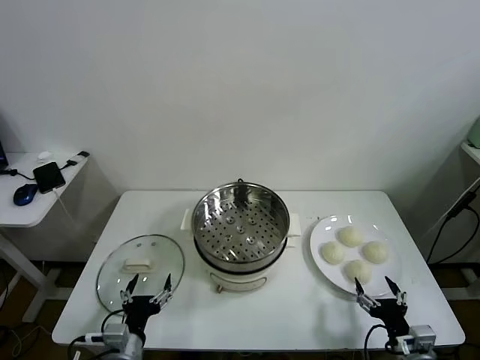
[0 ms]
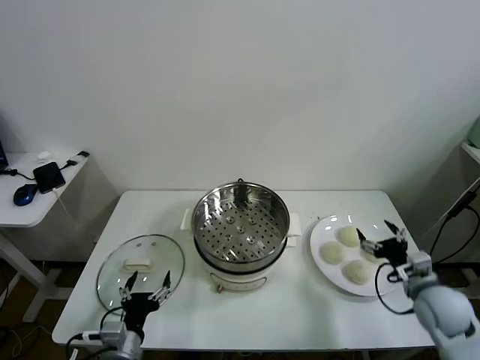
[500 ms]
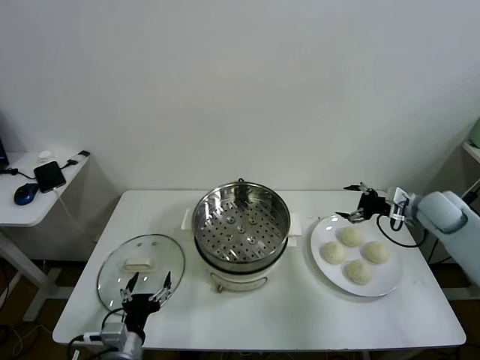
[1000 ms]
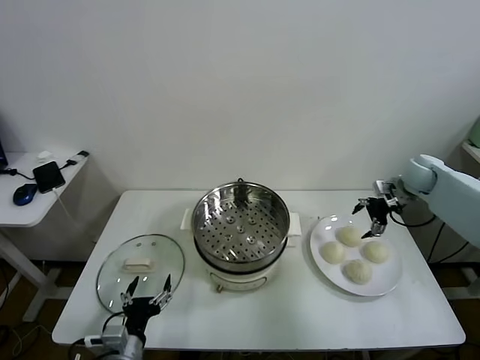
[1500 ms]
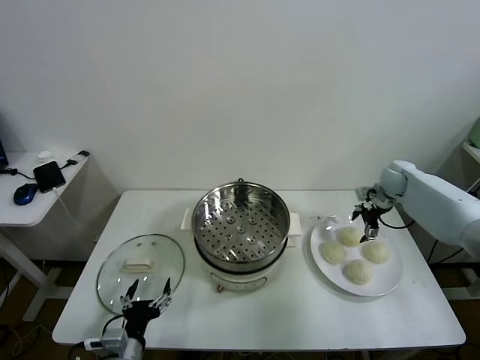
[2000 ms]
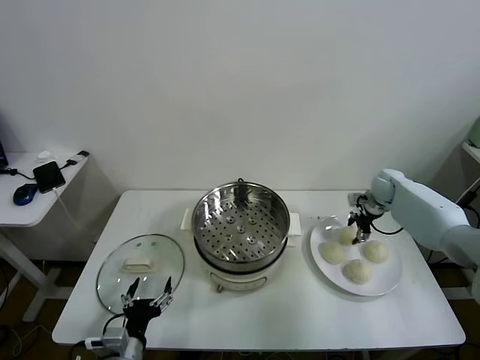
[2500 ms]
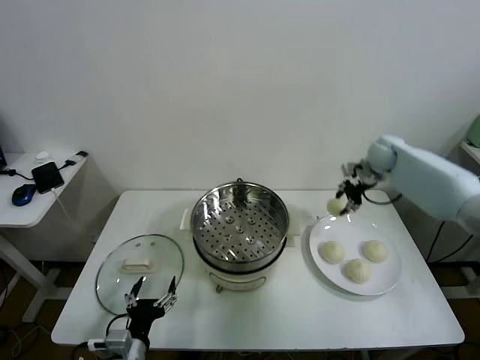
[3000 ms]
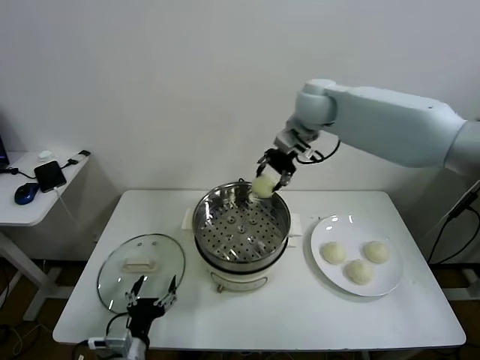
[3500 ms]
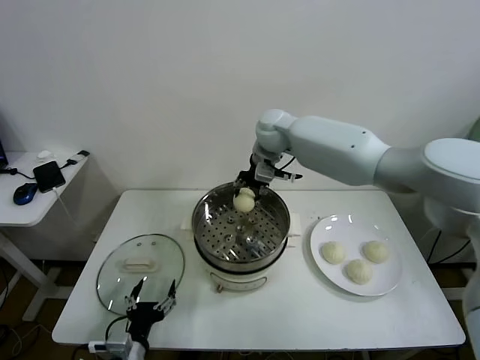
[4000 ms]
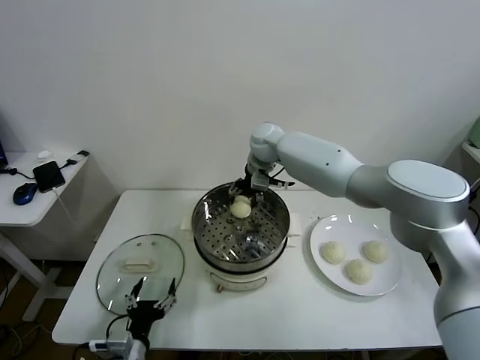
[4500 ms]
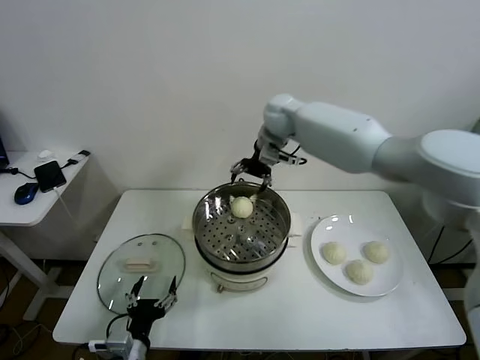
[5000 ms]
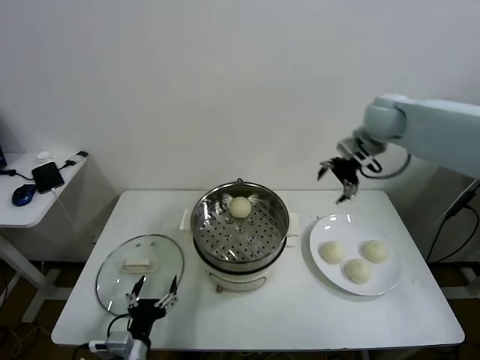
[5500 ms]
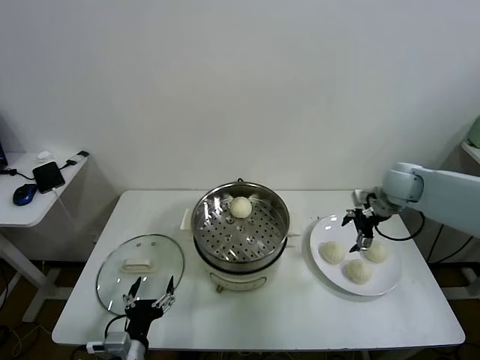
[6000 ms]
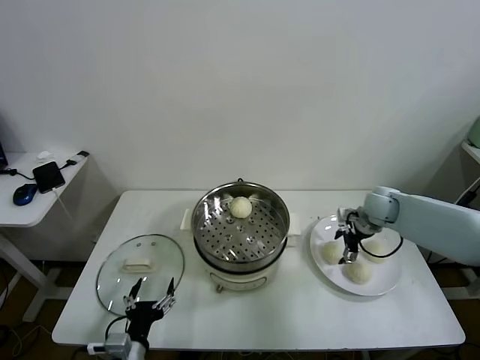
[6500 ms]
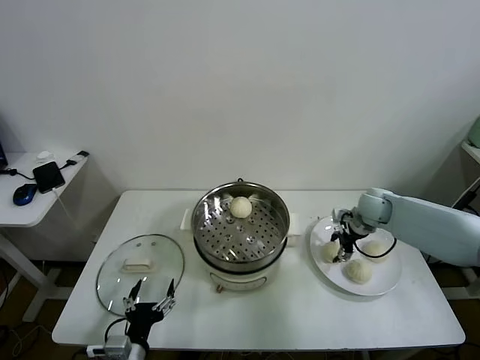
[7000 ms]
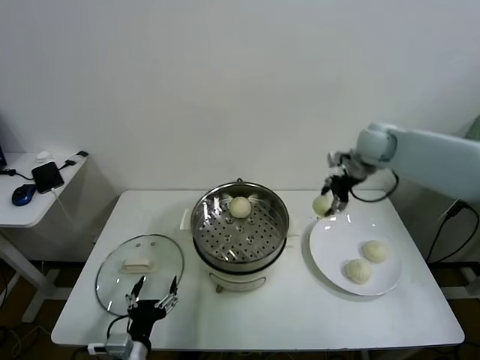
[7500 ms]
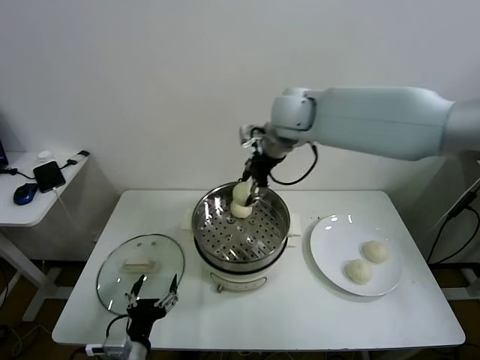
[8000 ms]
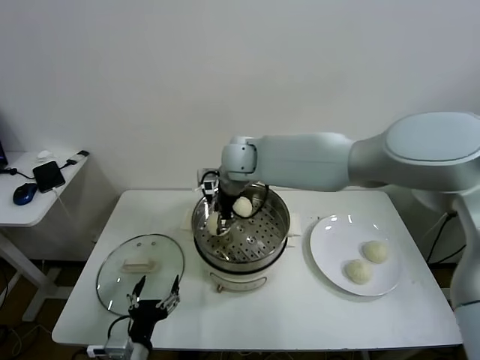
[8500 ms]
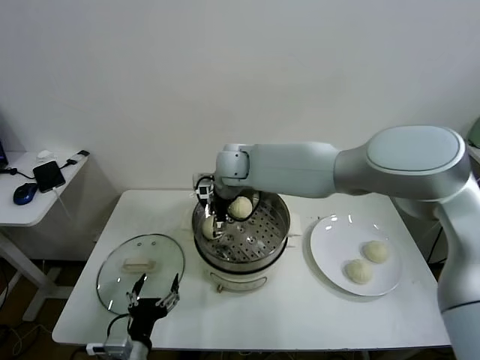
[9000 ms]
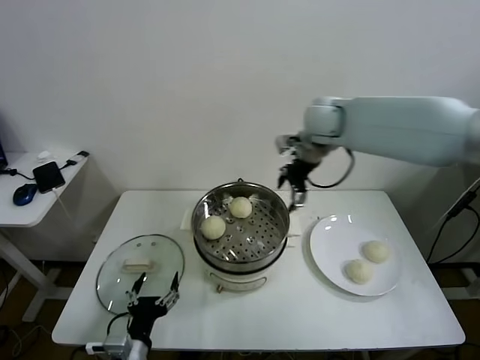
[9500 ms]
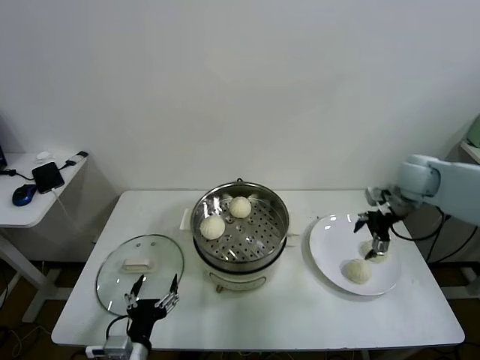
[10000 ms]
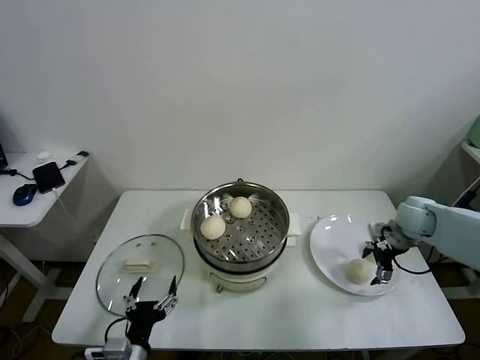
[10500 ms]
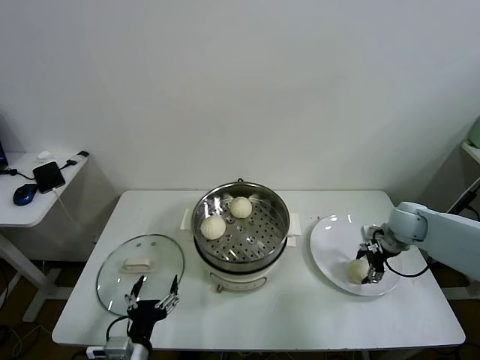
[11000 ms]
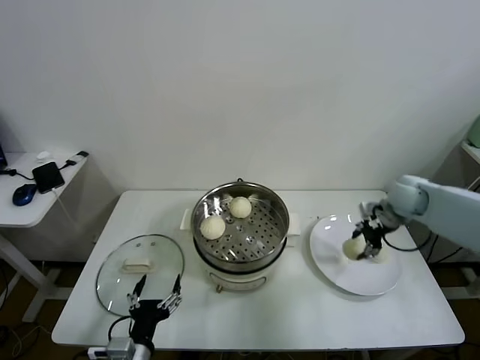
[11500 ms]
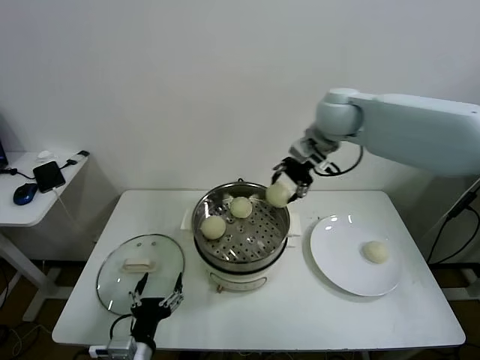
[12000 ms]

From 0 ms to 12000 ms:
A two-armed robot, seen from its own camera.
Task of the whole recording: take steamed baozi put them in steamer.
Step, from 0 ms to 2500 ms: Grasp the baozi in the plate with right gripper.
Step, from 3000 ms to 4500 ms: Place the baozi on the steamer with right gripper.
Step, from 5000 ms to 6500 ms: Grasp the baozi in the plate with right gripper.
Step, from 7000 ms to 9000 ms: Place the baozi on the steamer with right gripper.
Step, from 9500 ms to 11000 ms: Grasp the baozi in the plate with right gripper.
From 2000 ms to 4000 ms: The right gripper shifts about 40 cm to the left and upward, and closes up.
From 4000 ms to 6000 ms: The right gripper heads to the right, covering roughly 30 cm, and opens up.
From 6000 ms to 8000 ms: The right gripper shifts roughly 35 cm to the left and upward, and closes up.
From 8000 ms to 10000 ms: The right gripper is displaced to the right and downward by some 35 cm, and opens.
From 10000 ms to 12000 ms: The right gripper travels to the left and upward by about 30 cm, and closes its fingers.

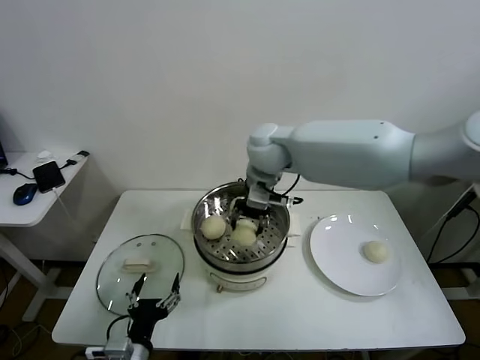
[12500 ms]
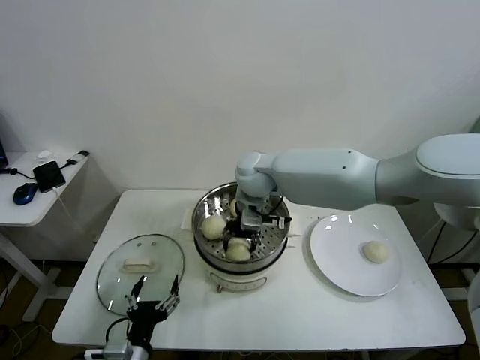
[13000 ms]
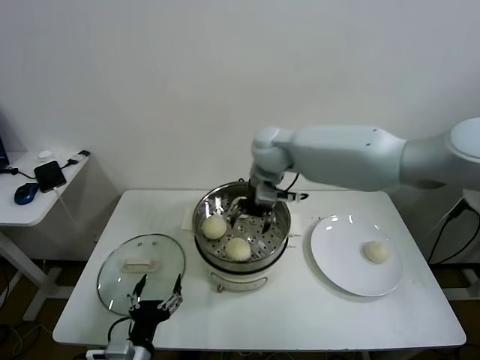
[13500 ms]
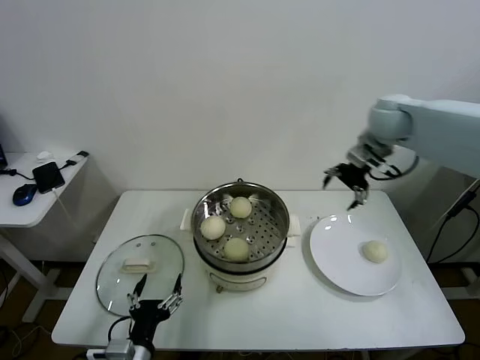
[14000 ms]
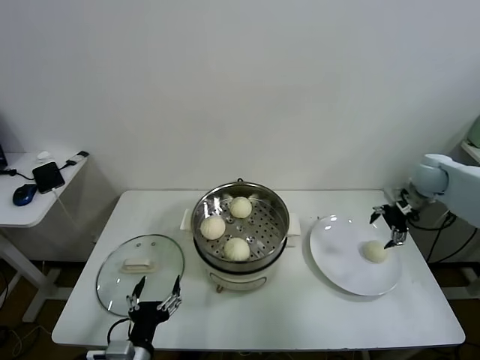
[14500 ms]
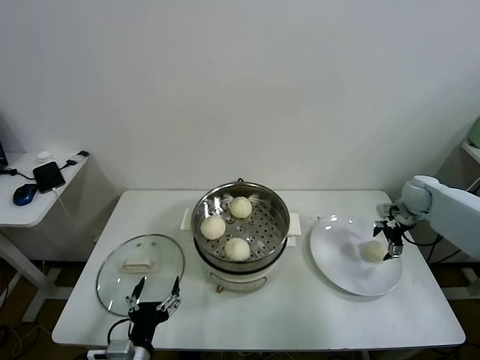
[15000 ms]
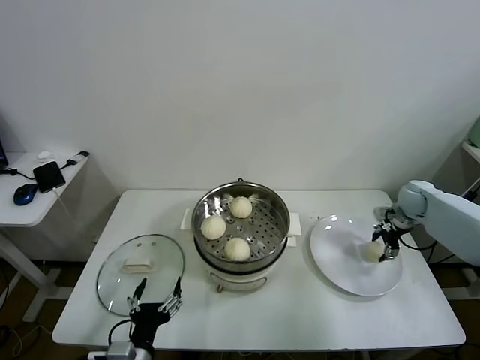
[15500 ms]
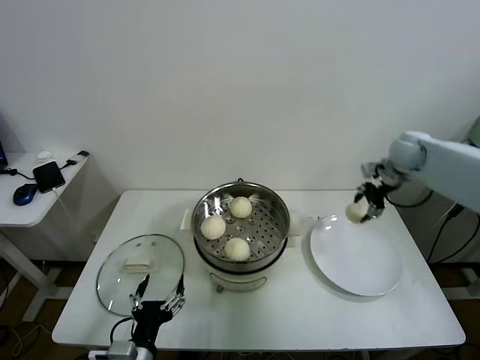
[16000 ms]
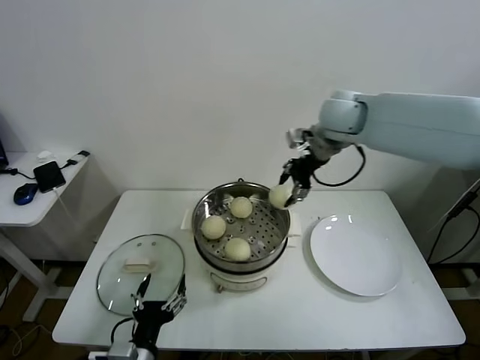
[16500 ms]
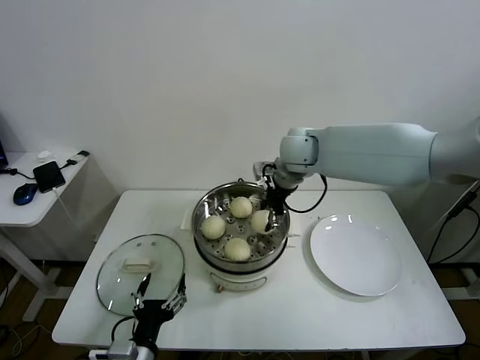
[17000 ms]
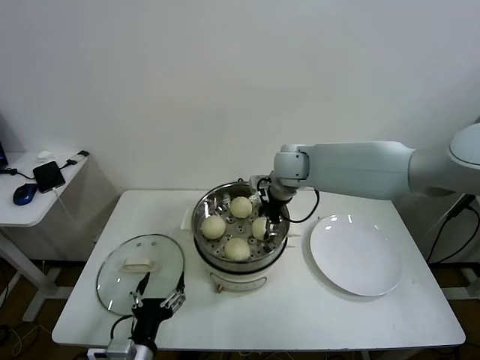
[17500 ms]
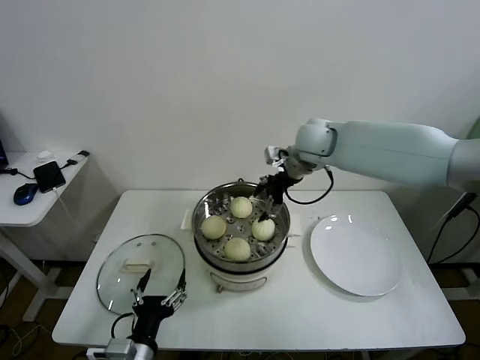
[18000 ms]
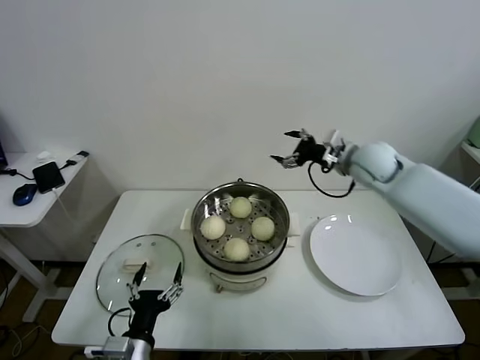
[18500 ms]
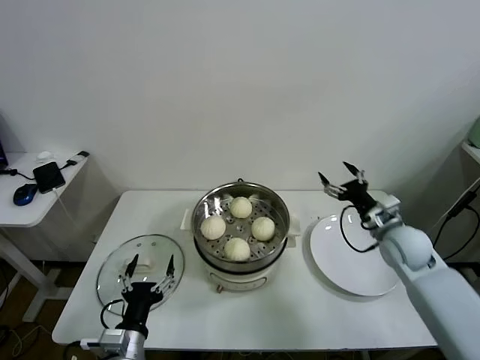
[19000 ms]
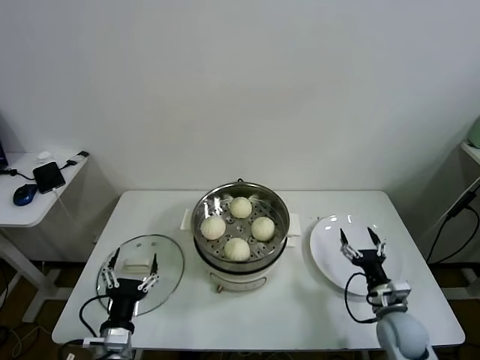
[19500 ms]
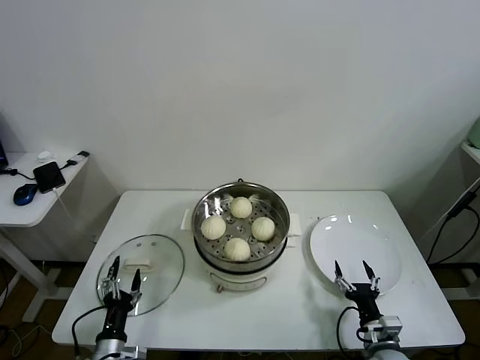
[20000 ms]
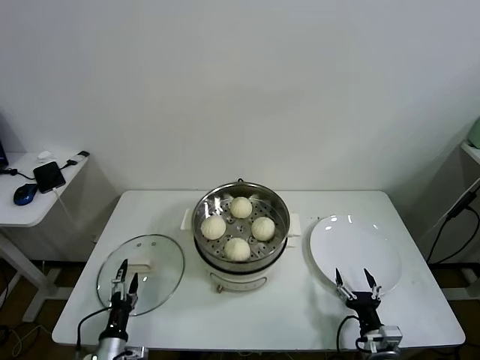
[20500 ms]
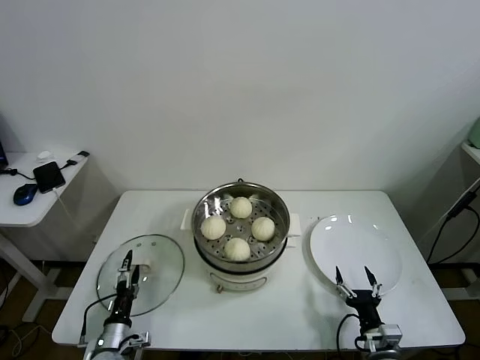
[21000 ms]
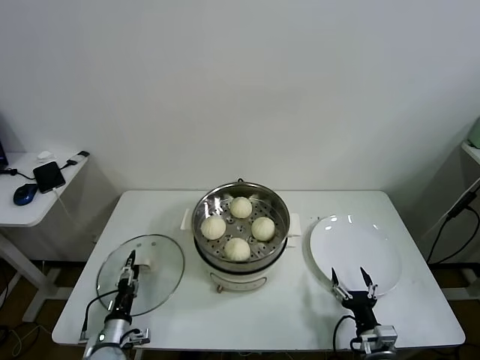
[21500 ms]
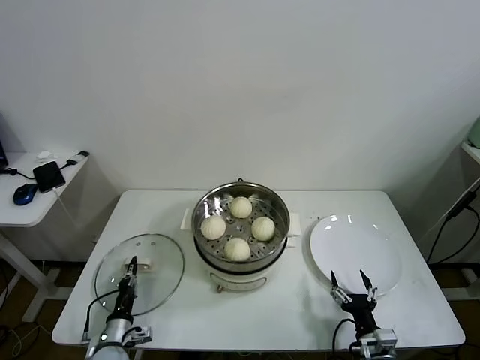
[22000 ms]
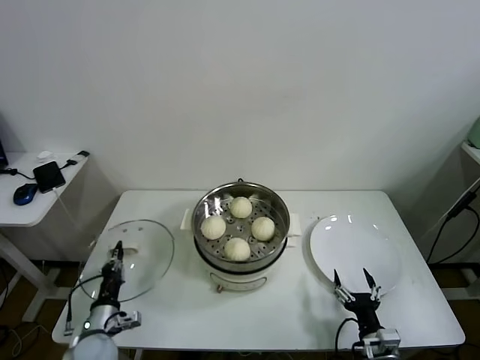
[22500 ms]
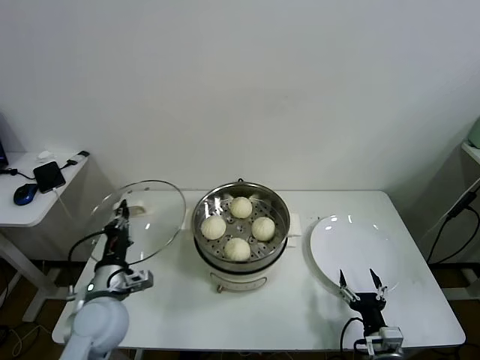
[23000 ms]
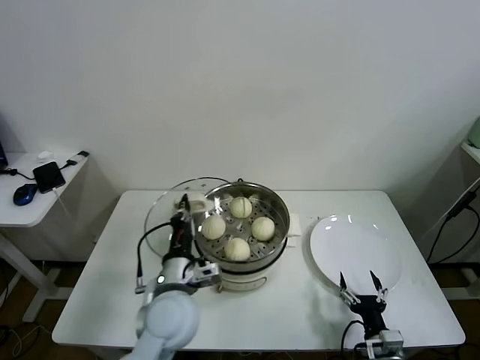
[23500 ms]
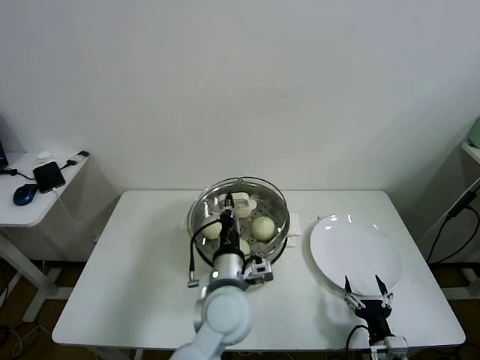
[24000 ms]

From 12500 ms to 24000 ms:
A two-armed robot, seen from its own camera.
Task of the whole recording: take steamed baozi put them in steamer.
Step, from 13500 ms to 15500 ms: Grasp the baozi in the plate with right gripper.
Step, from 16000 ms to 17500 ms: Place the baozi on the steamer with right gripper.
Step, from 18000 ms to 22000 ms: Grasp the pot lid with left gripper.
From 12500 ms to 14500 ms: The right gripper is displaced to the right by some 40 cm, and opens its fingers.
From 14500 ms to 16500 ms: The right gripper is displaced to the left and upward by about 30 cm, and closes.
From 16500 ms to 18500 ms: The right gripper moves downward and to the right, approximately 15 cm, and opens its fingers.
From 18500 ms to 20000 ms: The right gripper heads downward and backward, covering approximately 50 cm, while the left gripper shifts some 15 cm downward and to the left.
From 20000 ms to 22000 ms: The left gripper shifts some 10 cm downward and forward, and closes its fingers.
From 22000 ms to 24000 ms: The left gripper is displaced to the right and upward by about 40 cm.

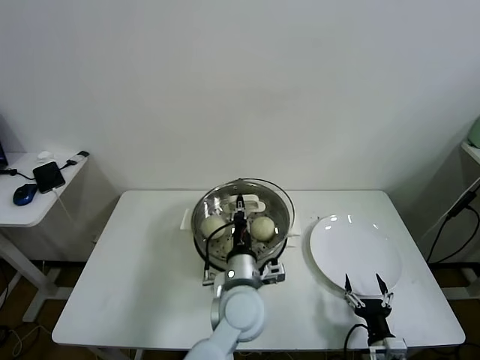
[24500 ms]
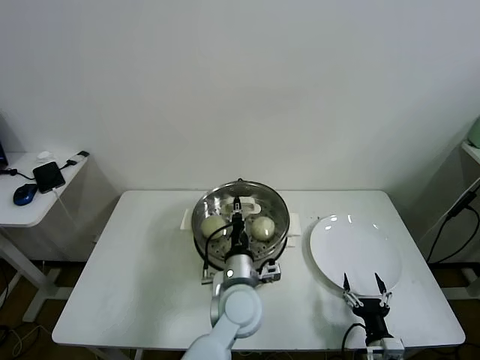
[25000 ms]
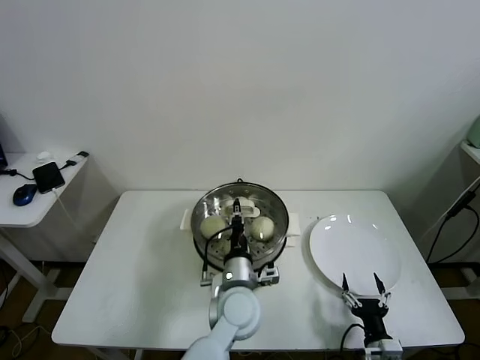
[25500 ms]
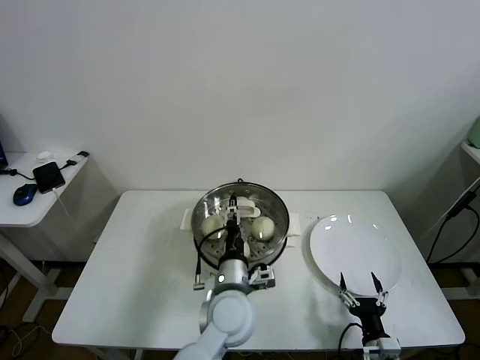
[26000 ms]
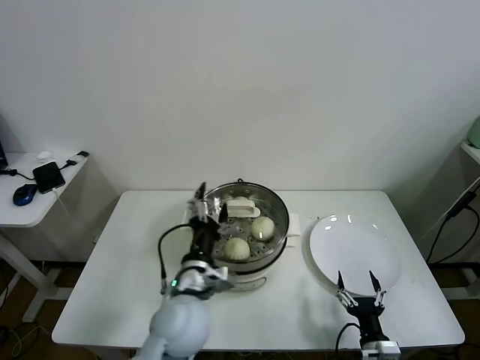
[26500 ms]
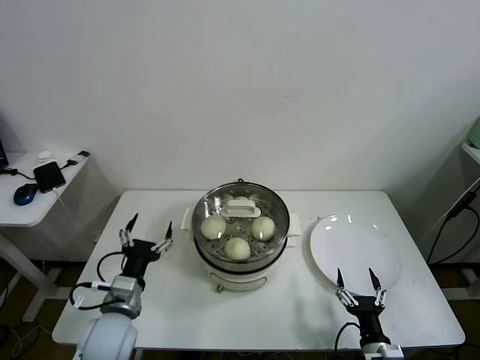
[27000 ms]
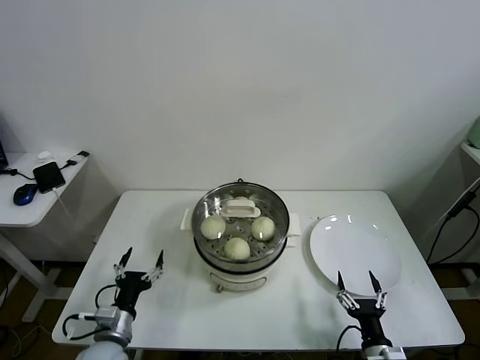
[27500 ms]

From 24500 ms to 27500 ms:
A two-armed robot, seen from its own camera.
Task of the whole recording: take steamed baozi put them in steamer.
From 24500 ms to 26000 ms: The left gripper opens.
From 26000 ms to 27500 ms: The left gripper goes some 25 cm to the left, and opens.
